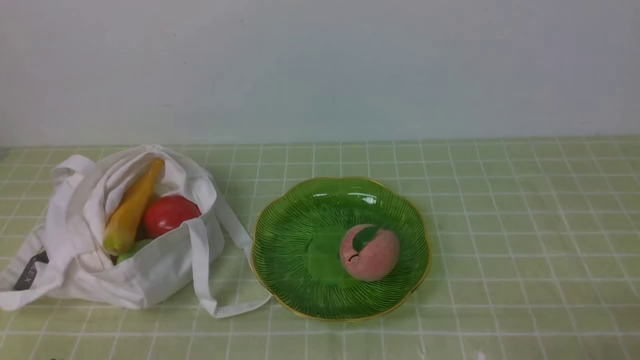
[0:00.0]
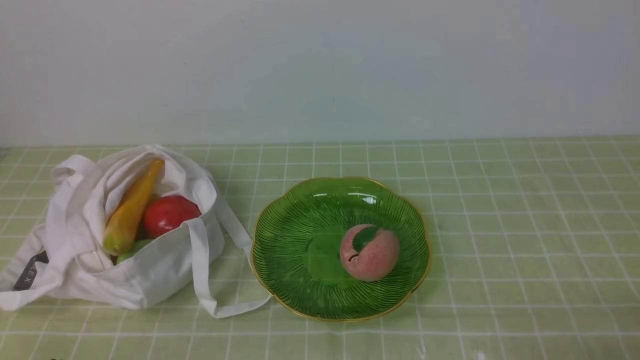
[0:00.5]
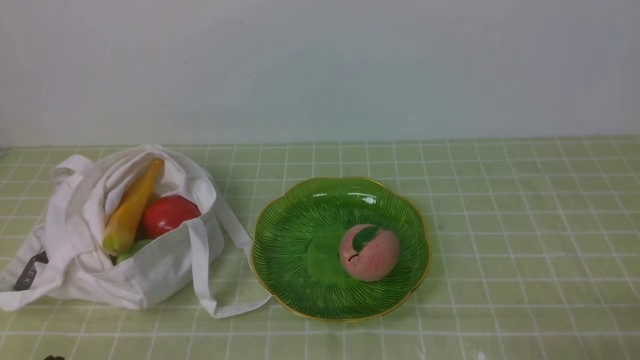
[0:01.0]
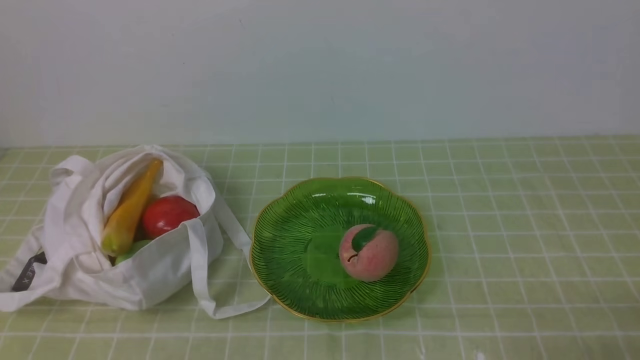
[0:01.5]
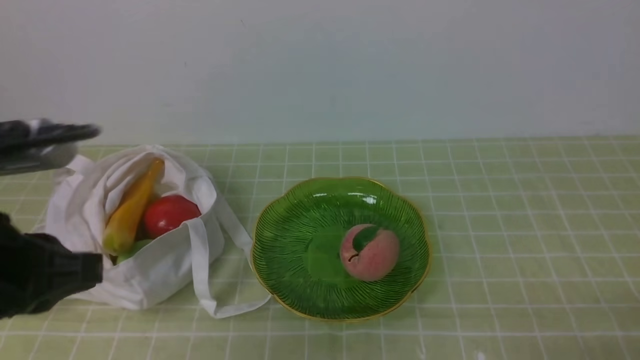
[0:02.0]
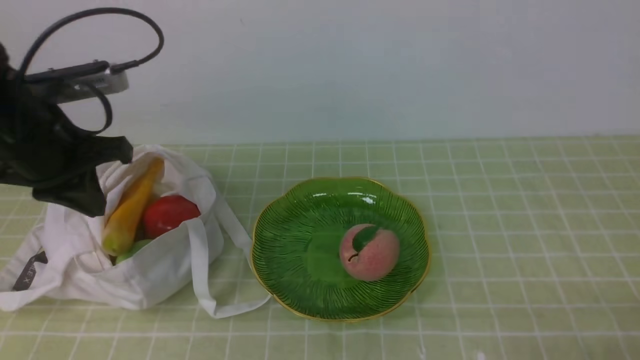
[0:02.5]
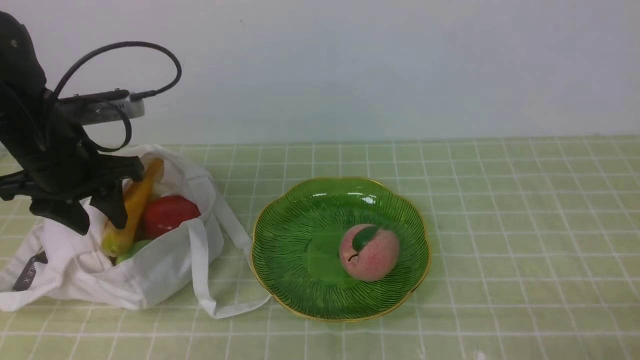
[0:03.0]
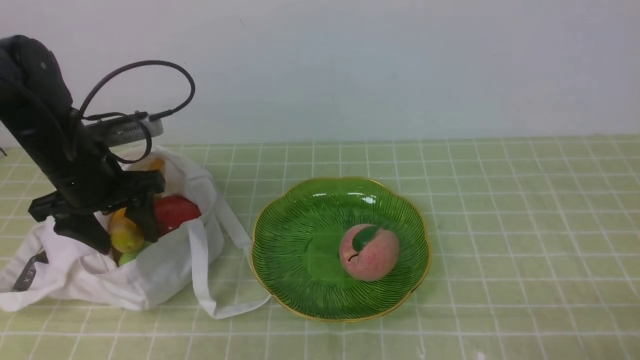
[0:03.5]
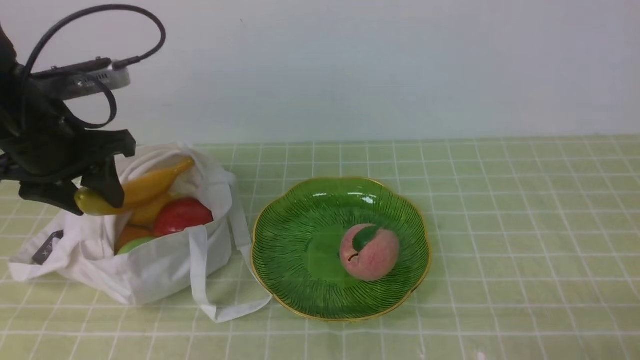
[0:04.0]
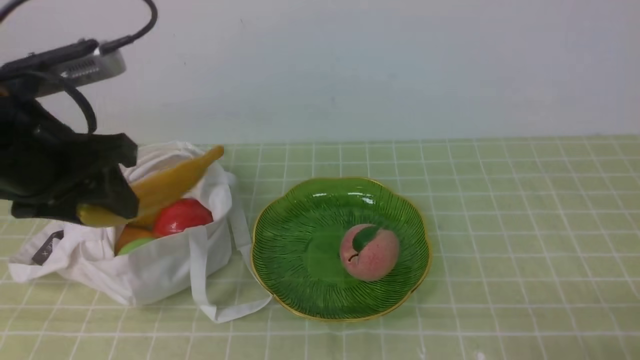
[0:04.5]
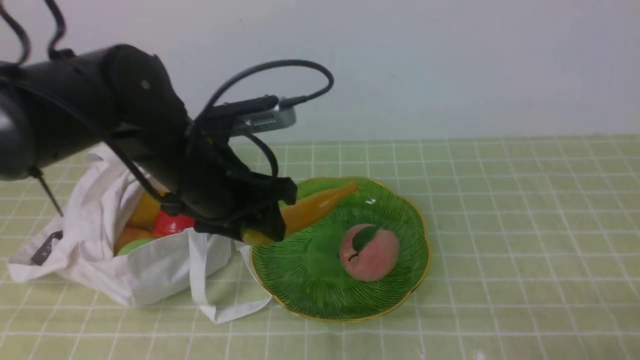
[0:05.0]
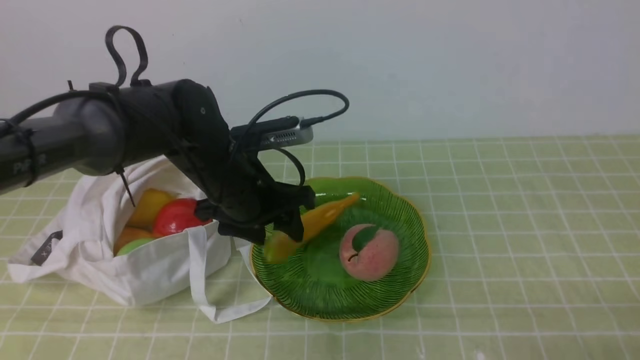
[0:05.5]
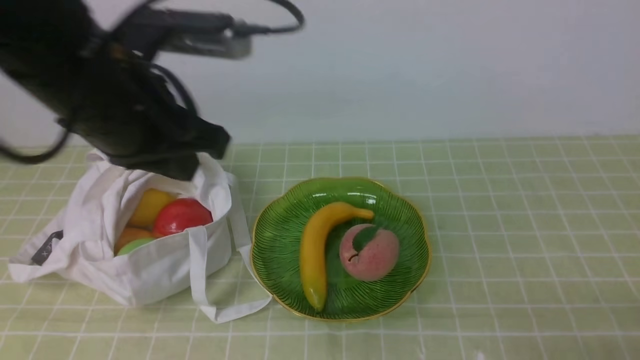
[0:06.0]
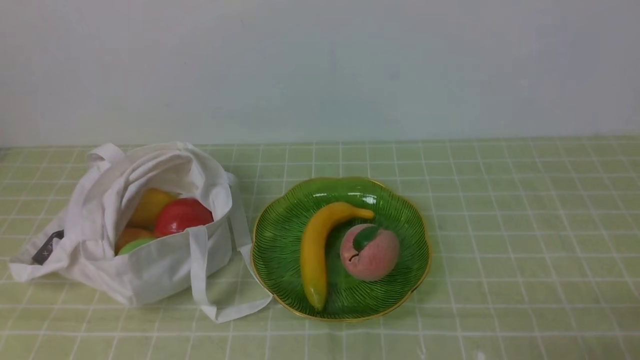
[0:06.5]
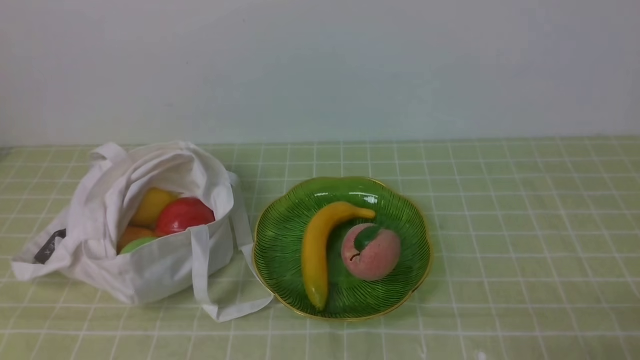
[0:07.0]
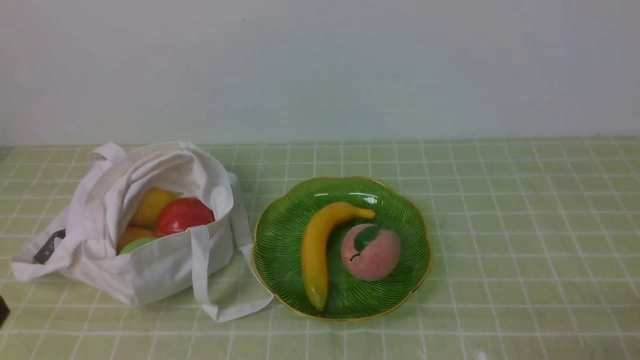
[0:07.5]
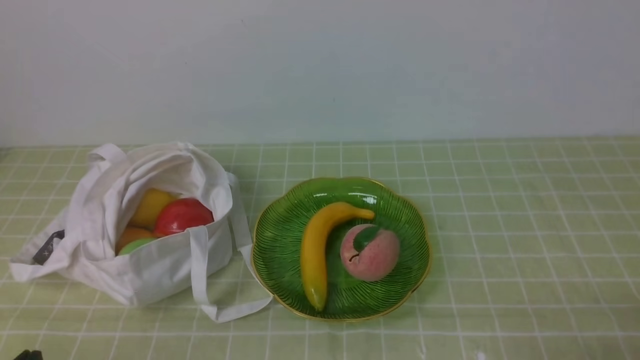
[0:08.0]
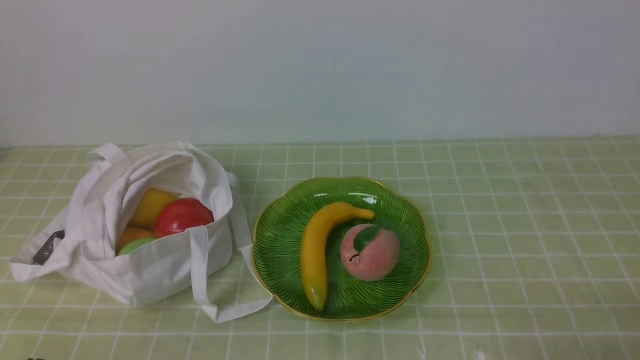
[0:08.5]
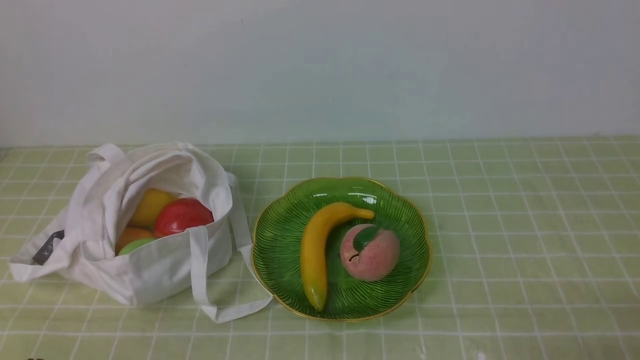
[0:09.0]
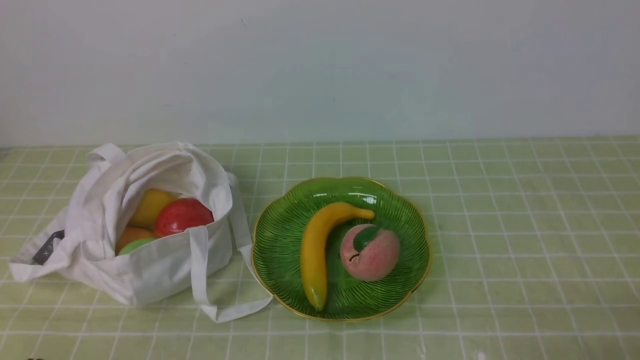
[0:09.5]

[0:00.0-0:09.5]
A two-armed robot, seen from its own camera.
Step, 0:00.0 to 0:03.5: use the left arm to grab a banana from the bag.
Step, 0:04.0 to 0:05.5: use the left arm to put the banana into the empty plate on the right.
0:00.0 to 0:02.0: The left gripper moves upward and forward, about 20 cm.
0:02.0 to 0:04.0: The left gripper goes about 15 cm forward, and opens.
0:04.0 to 0:05.5: The left gripper shifts roughly 20 cm to the right and downward.
0:05.5 to 0:07.5: The left gripper moves backward and to the left, about 35 cm, and closes.

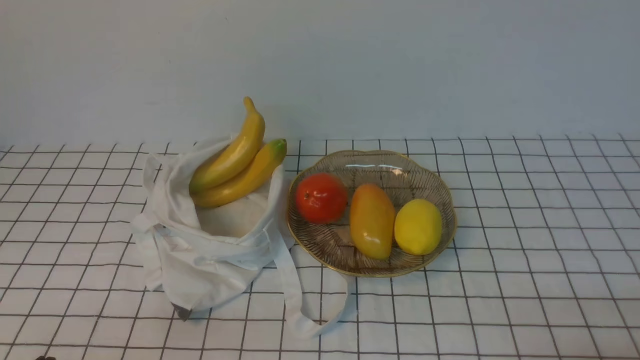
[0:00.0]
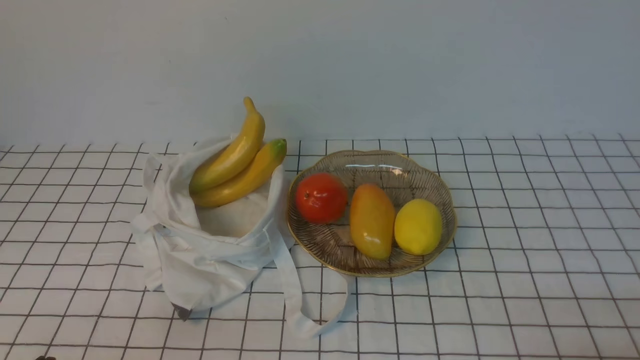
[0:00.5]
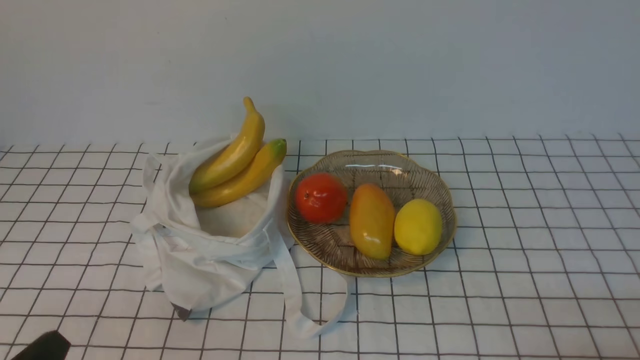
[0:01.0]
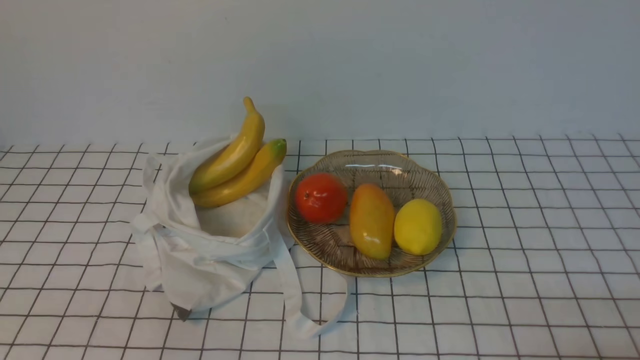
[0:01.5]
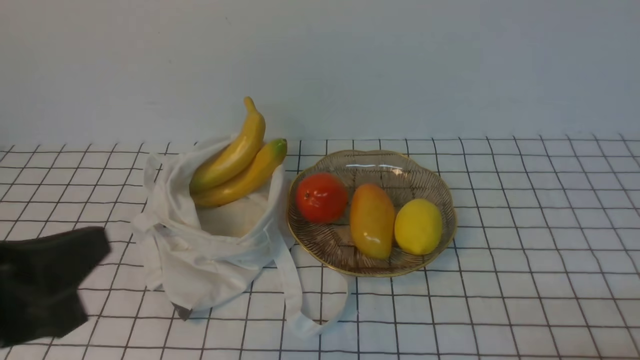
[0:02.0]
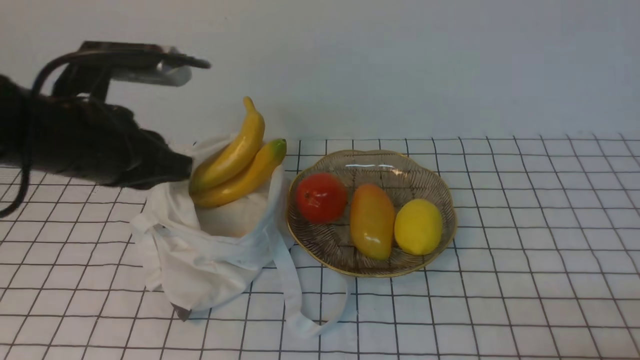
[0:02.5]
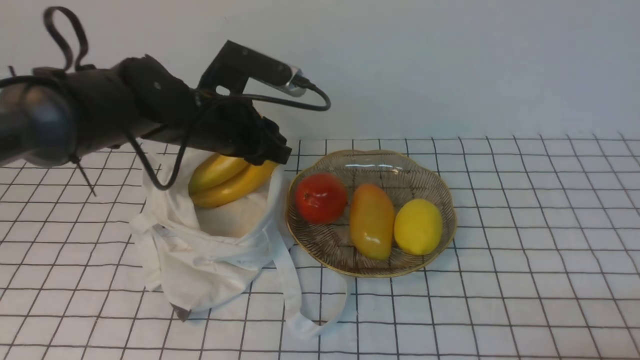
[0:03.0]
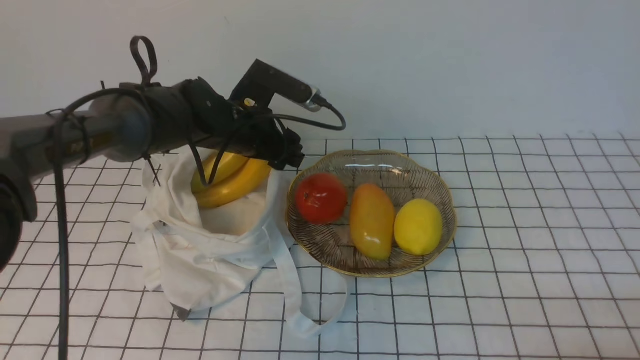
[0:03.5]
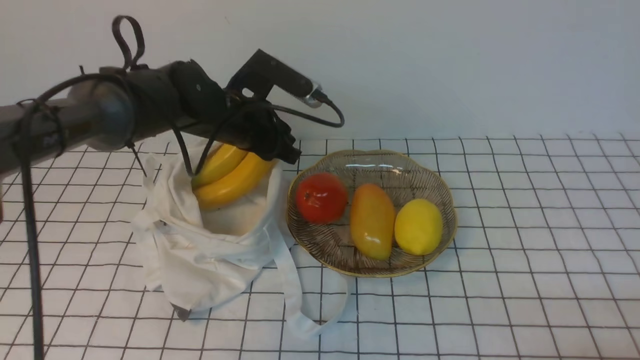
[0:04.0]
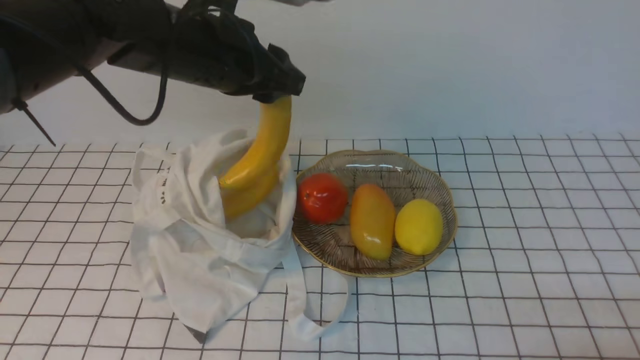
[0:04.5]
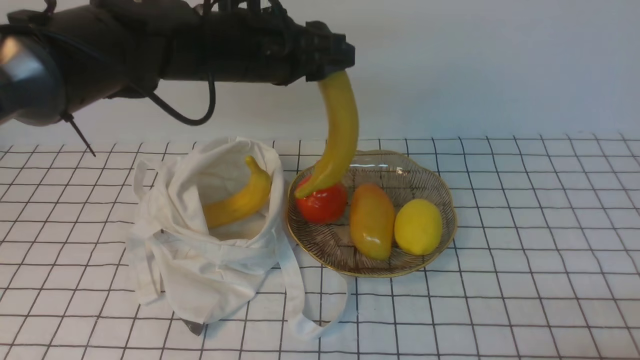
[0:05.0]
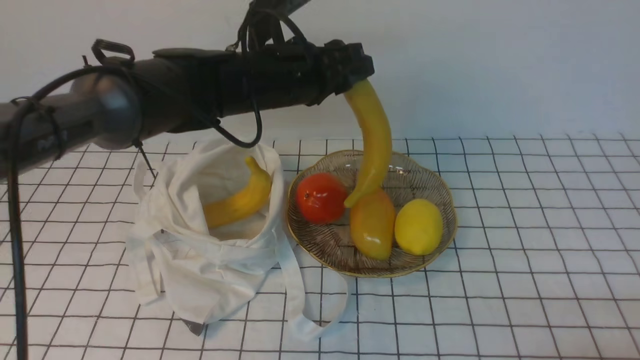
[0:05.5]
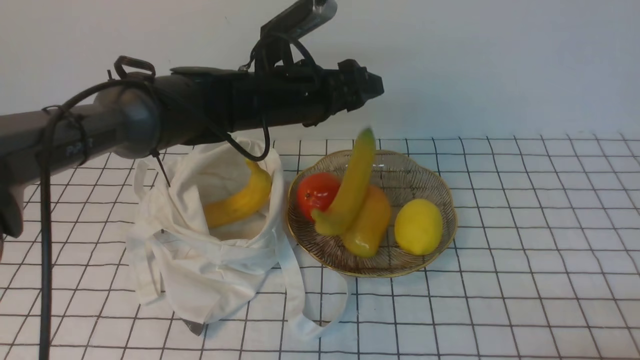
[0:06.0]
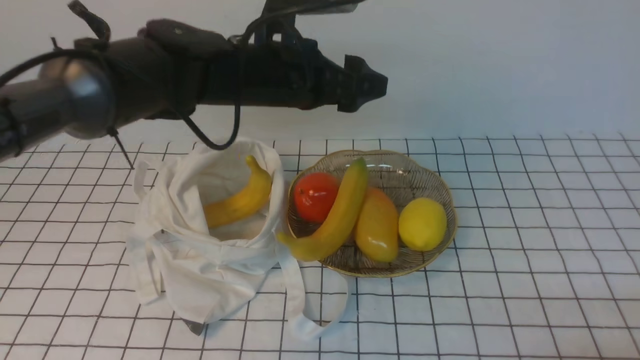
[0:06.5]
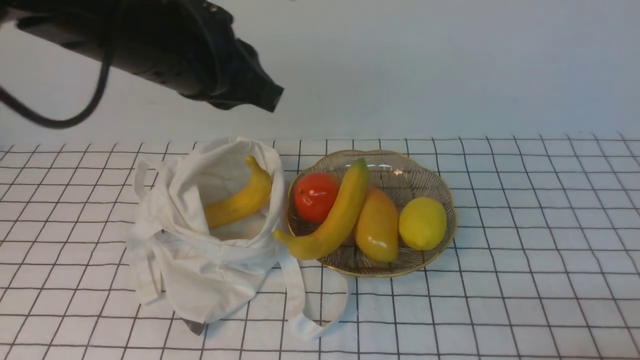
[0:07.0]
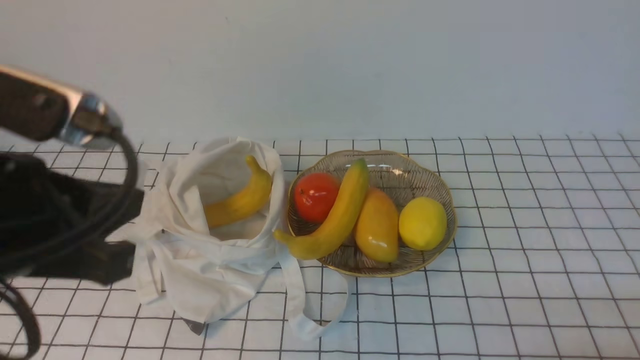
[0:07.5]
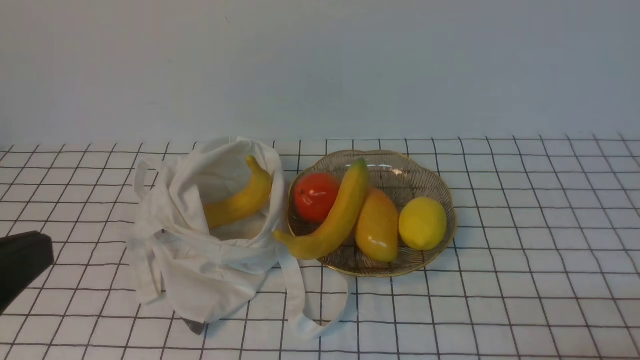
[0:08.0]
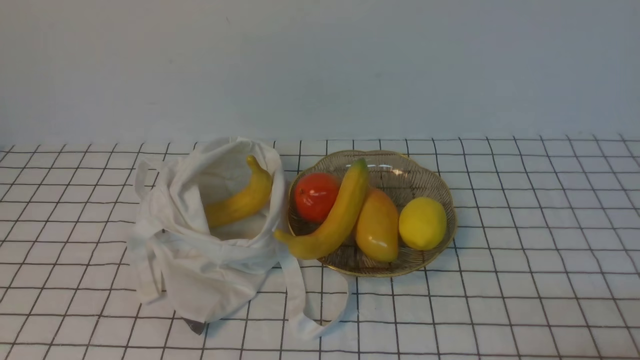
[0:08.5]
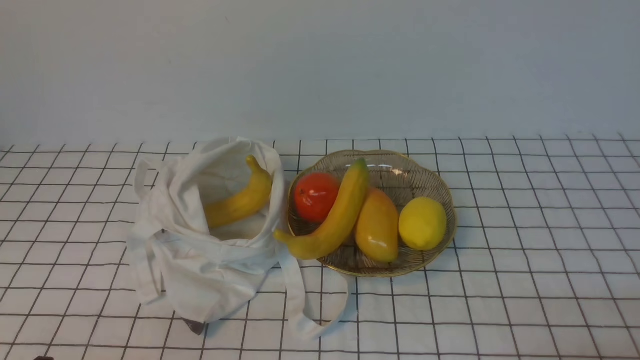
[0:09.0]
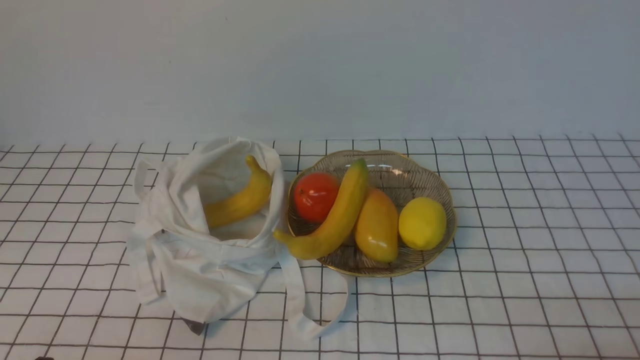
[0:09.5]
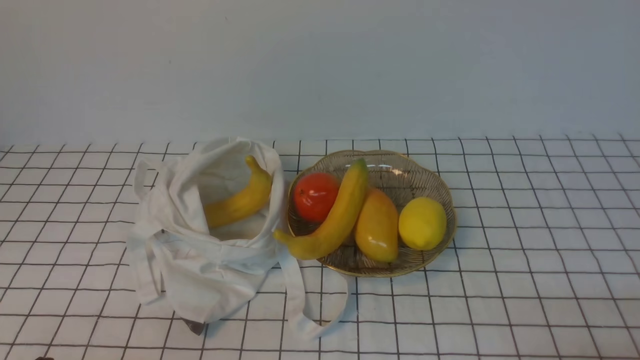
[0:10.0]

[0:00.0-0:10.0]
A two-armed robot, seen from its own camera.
Step, 0:00.0 to 0:04.0: use the left arm to grab a banana from the bag.
Step, 0:04.5 to 0:06.0: use the left arm to put the banana into the empty plate on the right.
0:02.0 to 0:04.0: The left gripper travels forward by roughly 35 cm, and opens.
0:04.0 to 0:06.0: The left gripper is displaced to the right by some 5 cm.
0:06.0 to 0:08.0: The left gripper is displaced backward and to the left by about 35 cm, and closes up.
0:08.0 to 0:10.0: The left gripper shifts about 15 cm downward.
